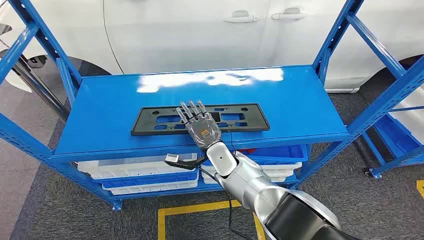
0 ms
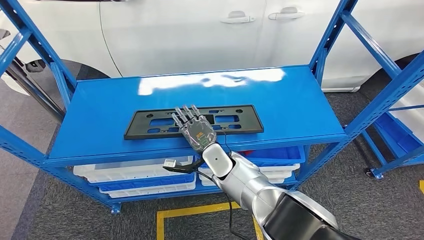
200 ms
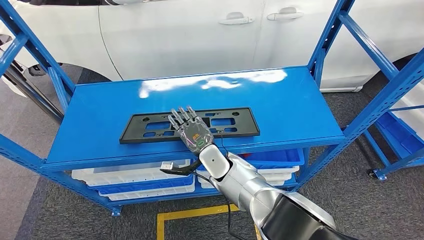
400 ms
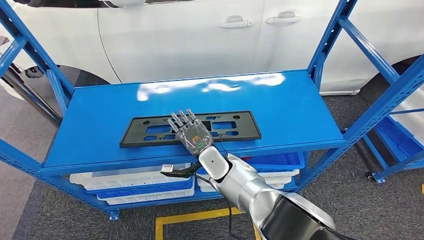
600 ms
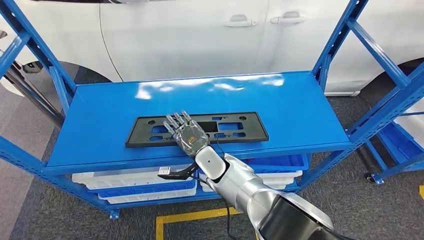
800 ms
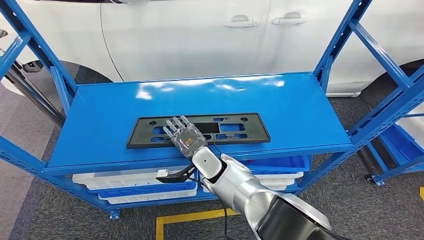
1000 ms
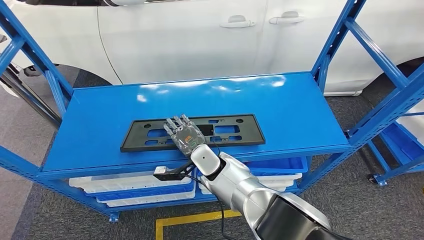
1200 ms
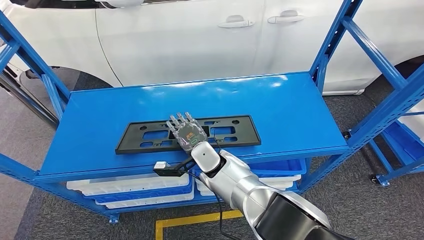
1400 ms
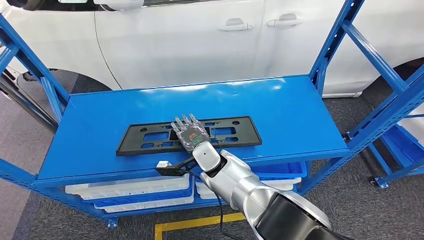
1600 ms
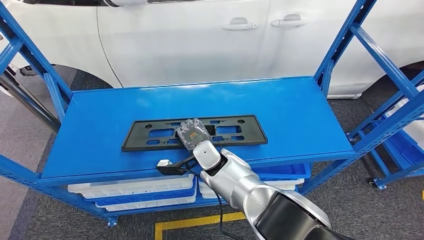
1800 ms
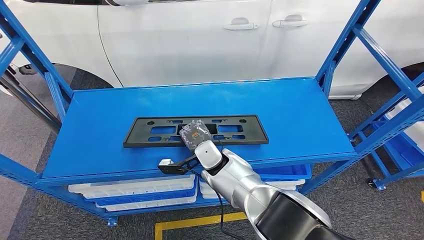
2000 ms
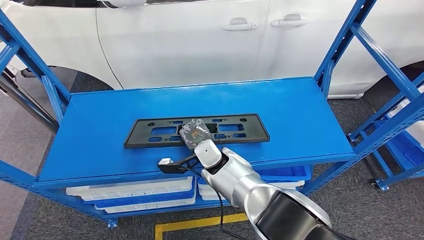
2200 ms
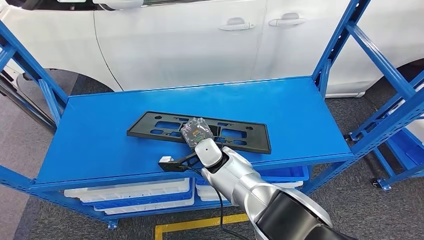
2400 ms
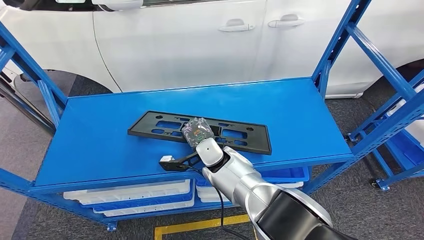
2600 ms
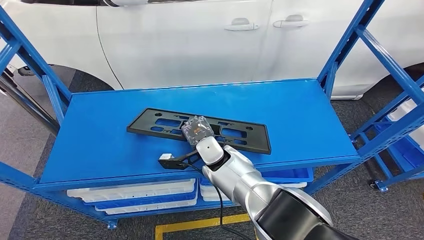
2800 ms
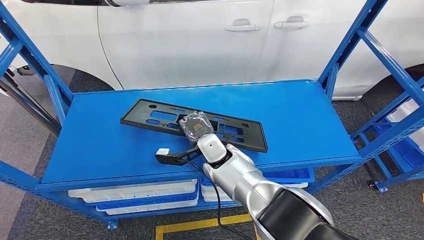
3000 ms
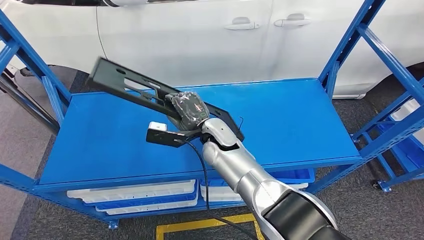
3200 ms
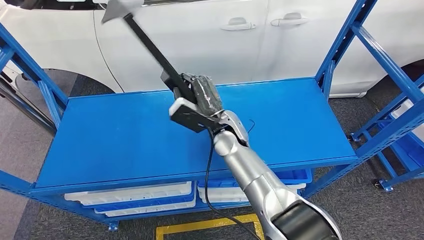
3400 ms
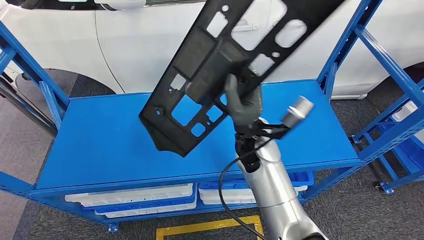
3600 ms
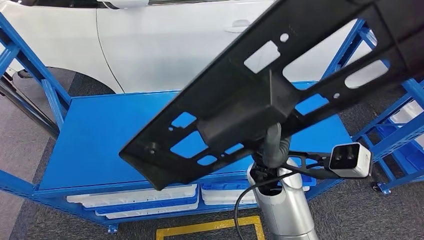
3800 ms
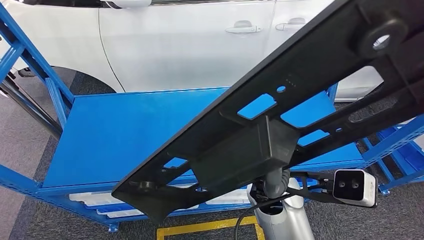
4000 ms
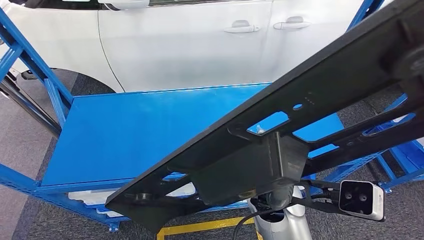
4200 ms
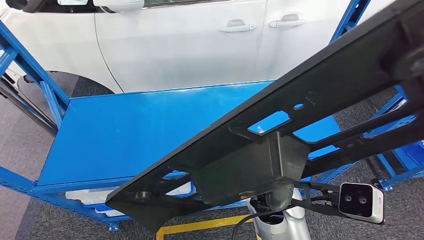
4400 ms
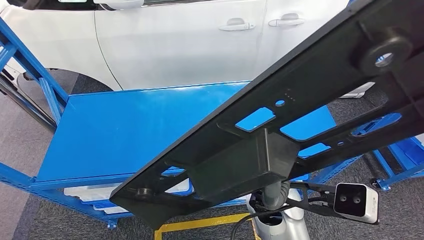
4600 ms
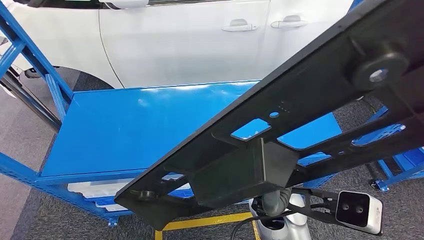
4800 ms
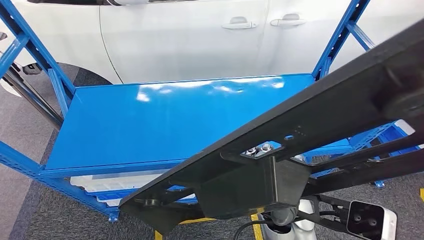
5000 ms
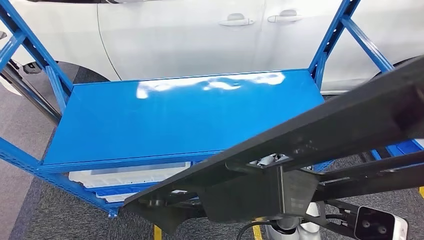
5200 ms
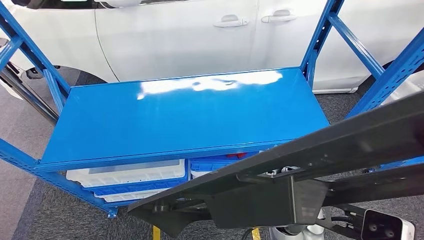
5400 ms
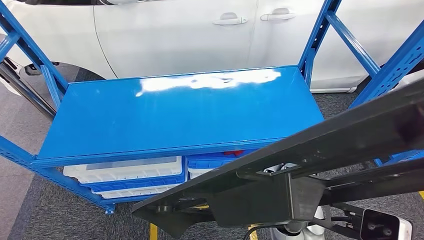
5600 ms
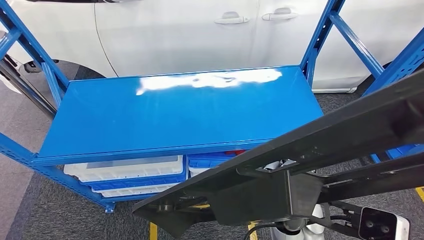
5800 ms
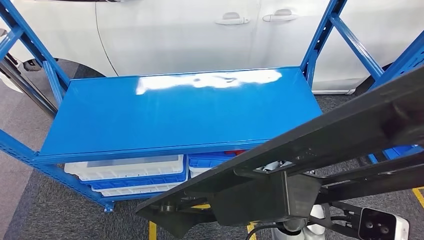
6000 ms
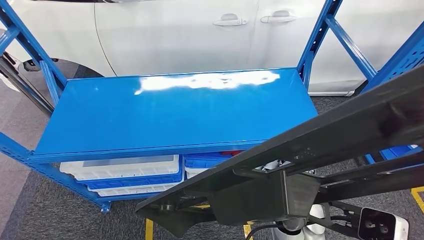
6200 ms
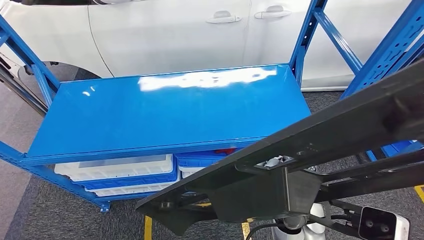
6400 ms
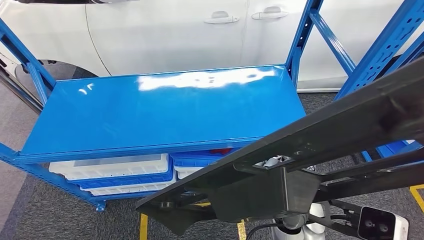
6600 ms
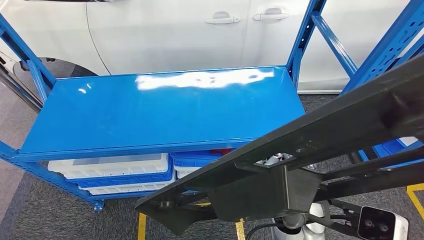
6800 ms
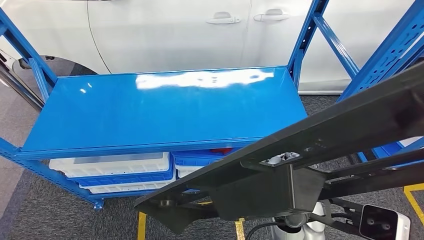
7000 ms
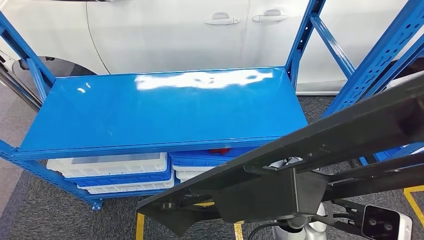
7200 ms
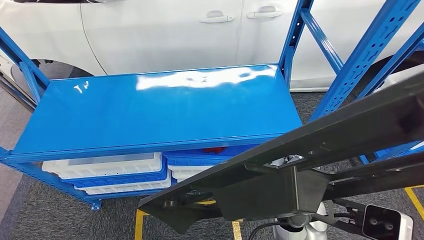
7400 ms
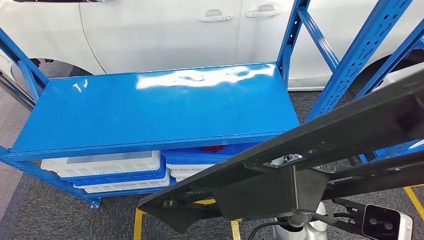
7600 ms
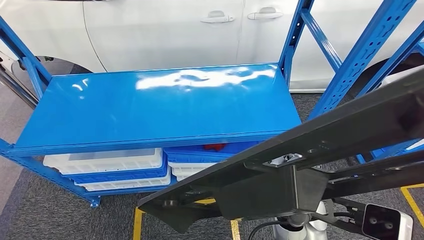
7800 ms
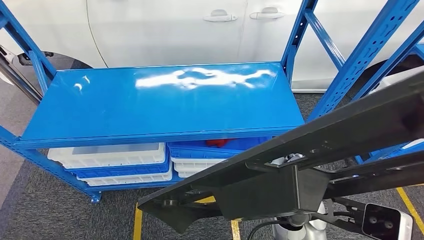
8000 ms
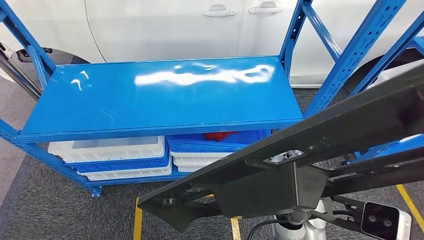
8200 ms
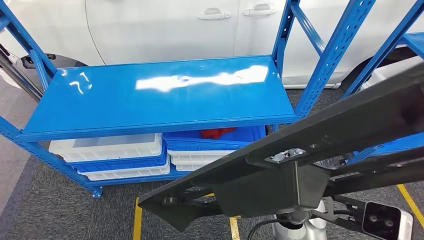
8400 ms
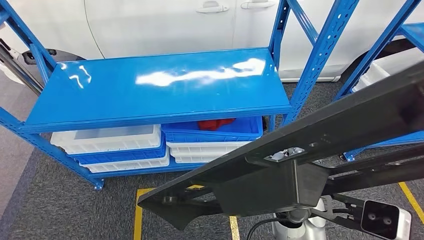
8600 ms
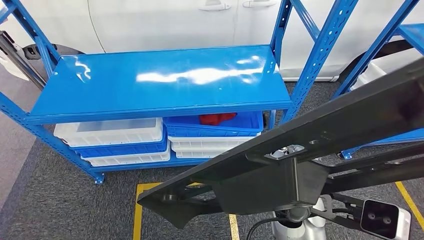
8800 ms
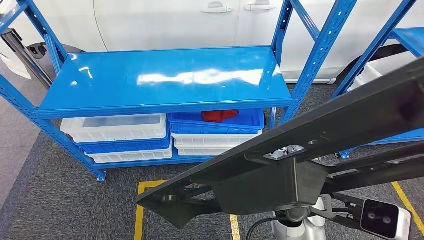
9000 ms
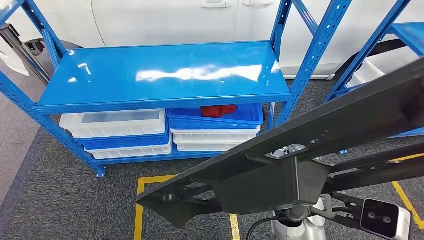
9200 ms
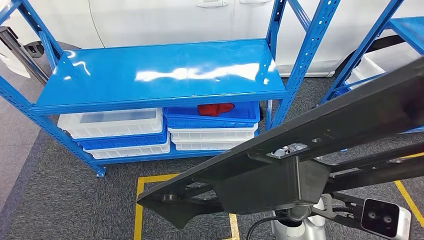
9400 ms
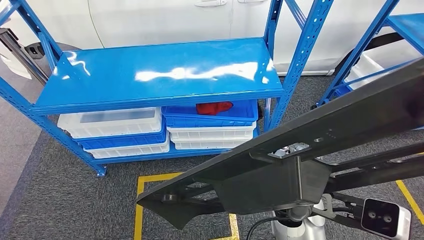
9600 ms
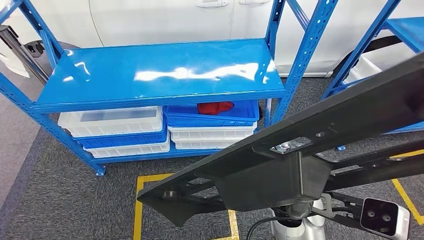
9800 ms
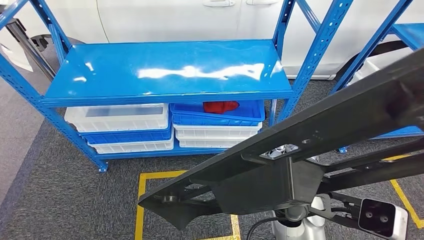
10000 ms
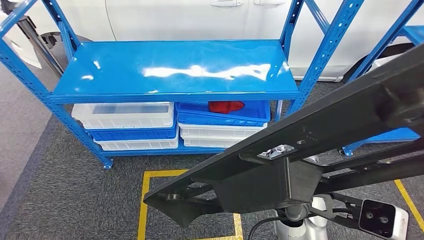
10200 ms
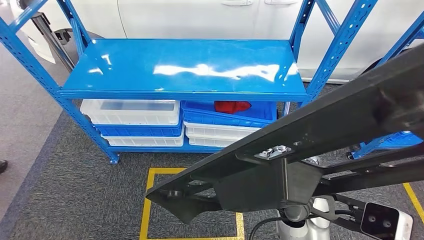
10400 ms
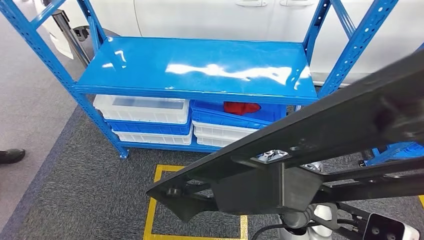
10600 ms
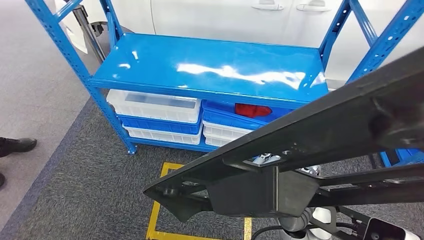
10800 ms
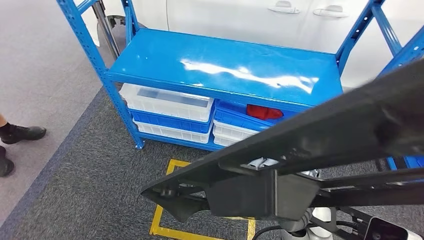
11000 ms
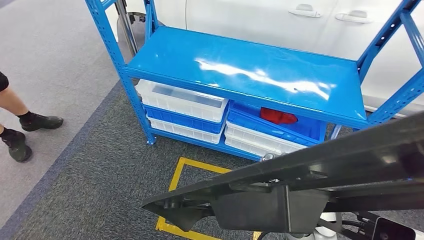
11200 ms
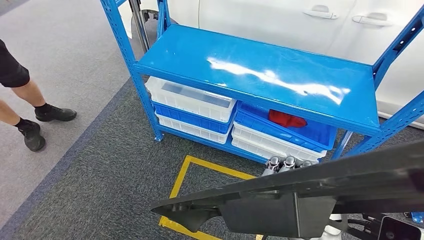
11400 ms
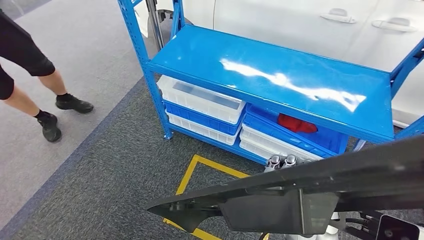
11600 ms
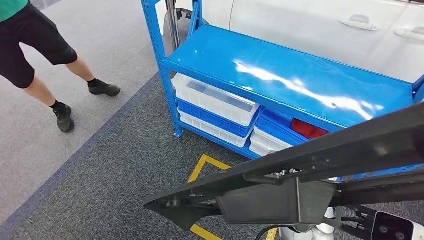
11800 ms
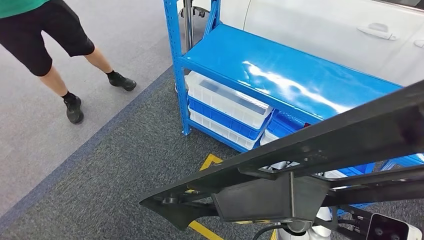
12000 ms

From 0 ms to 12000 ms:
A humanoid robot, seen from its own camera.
Step, from 0 ms to 4600 ms: Pick up the large material from the shelf.

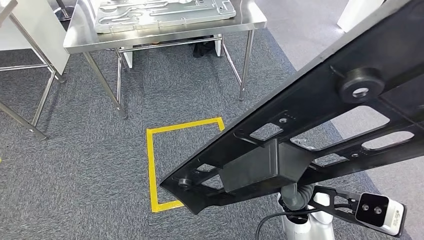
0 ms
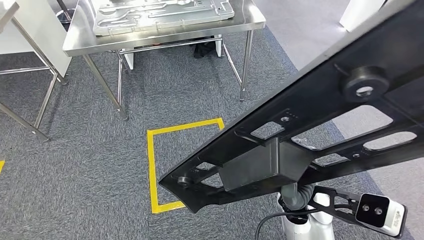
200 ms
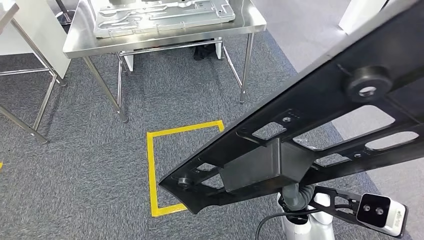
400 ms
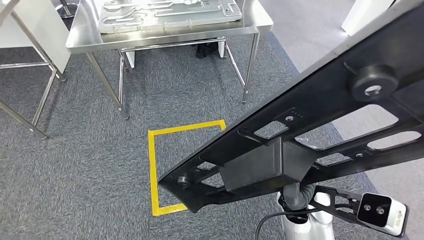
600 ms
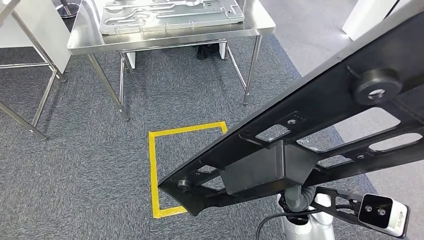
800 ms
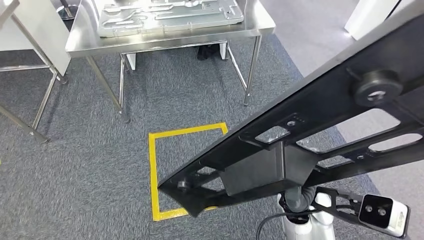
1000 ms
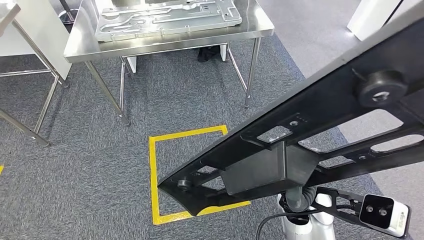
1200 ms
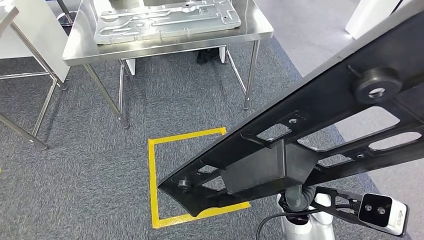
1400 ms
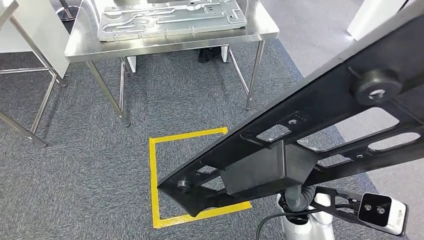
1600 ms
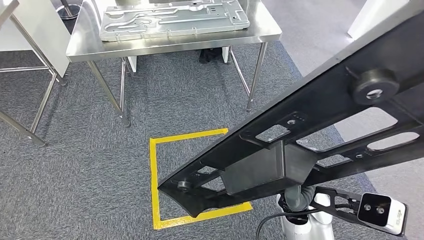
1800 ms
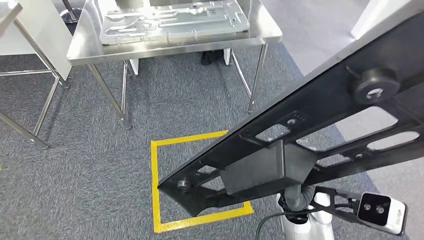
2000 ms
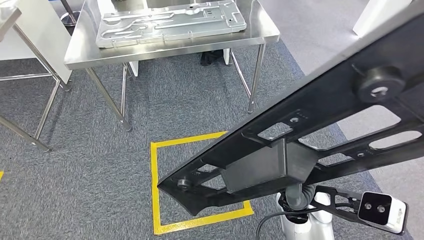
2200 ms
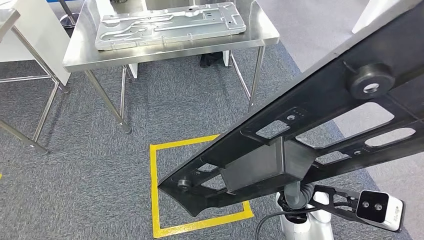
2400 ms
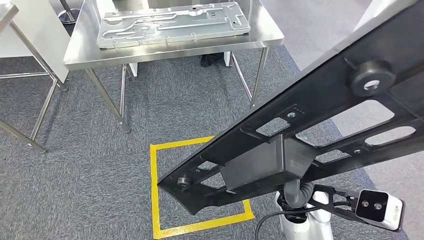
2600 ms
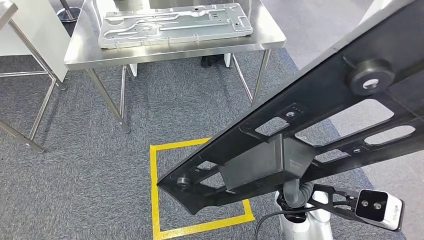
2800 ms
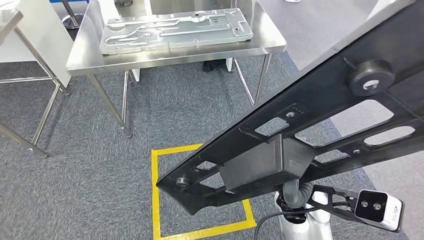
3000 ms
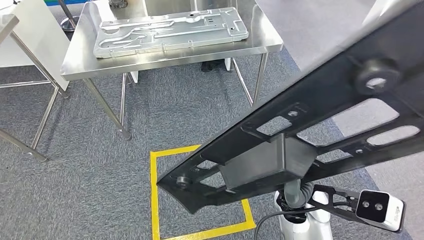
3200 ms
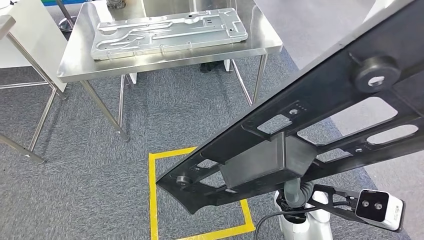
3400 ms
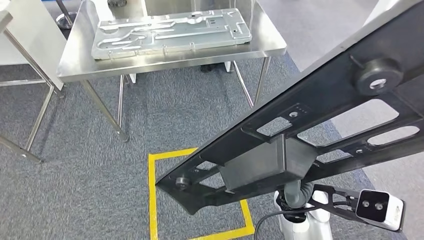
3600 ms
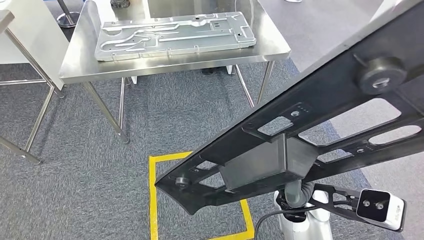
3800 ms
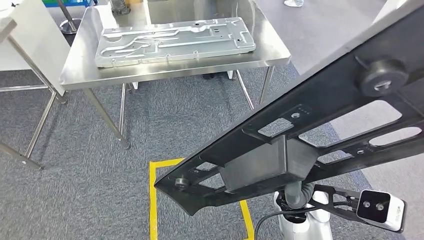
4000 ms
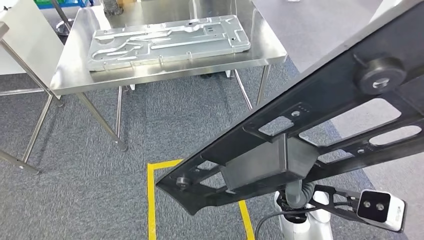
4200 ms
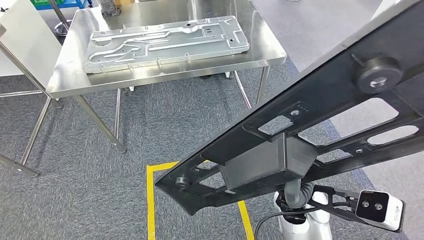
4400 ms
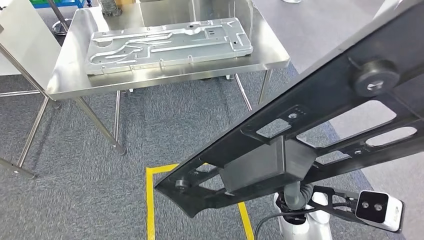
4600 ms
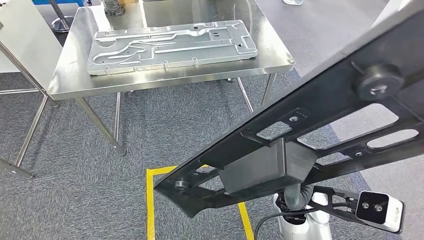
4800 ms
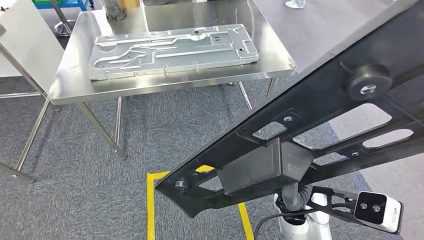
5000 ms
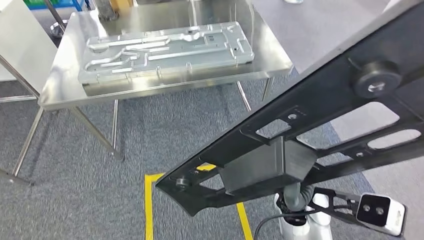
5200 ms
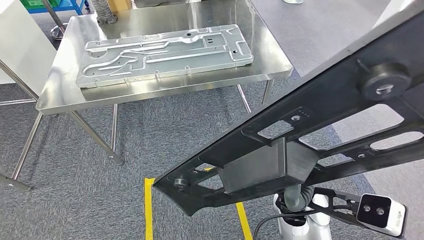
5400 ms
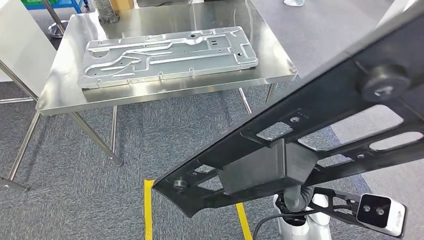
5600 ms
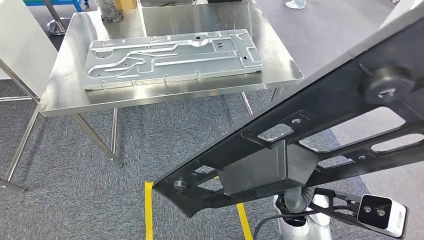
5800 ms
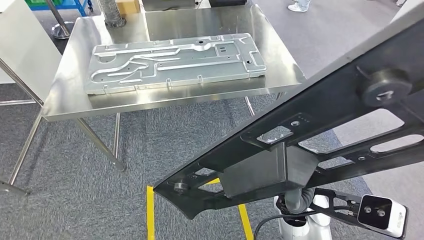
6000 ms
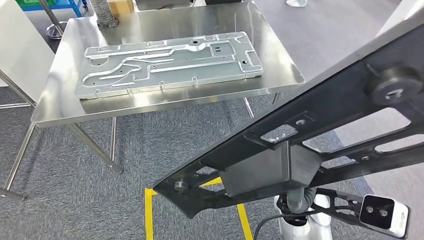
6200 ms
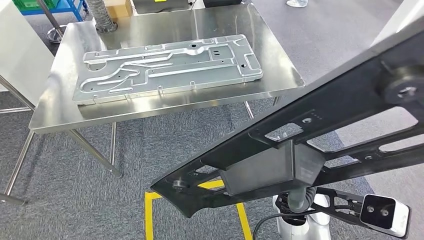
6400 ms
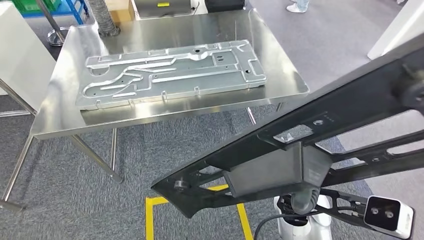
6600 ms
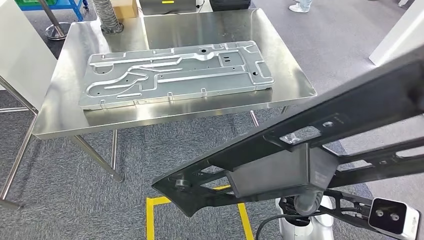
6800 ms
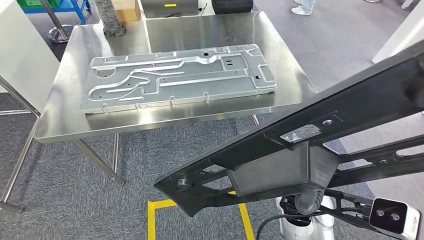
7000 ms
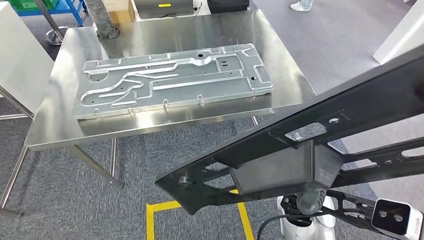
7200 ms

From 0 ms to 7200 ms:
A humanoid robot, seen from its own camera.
Step, from 0 ms to 6600 ms: Move the large material to the workbench.
